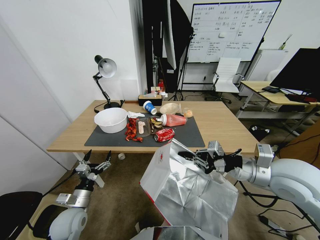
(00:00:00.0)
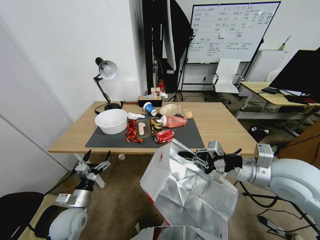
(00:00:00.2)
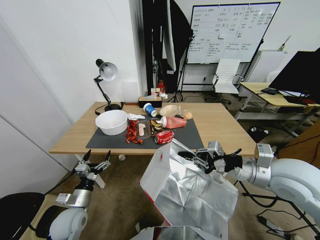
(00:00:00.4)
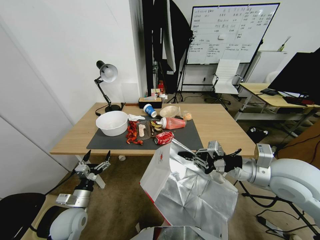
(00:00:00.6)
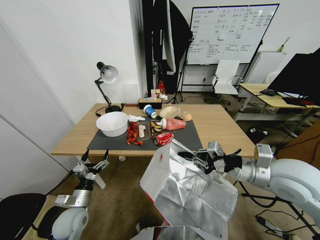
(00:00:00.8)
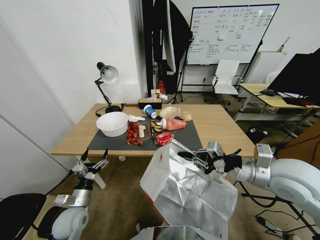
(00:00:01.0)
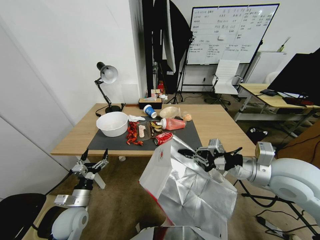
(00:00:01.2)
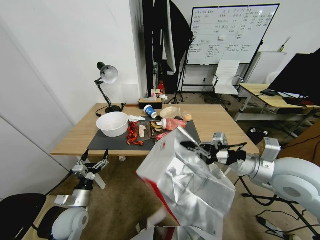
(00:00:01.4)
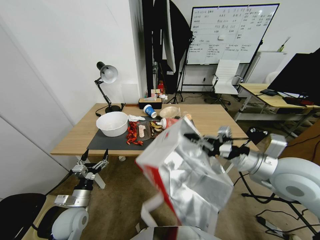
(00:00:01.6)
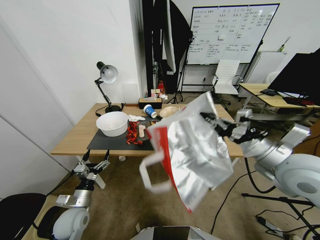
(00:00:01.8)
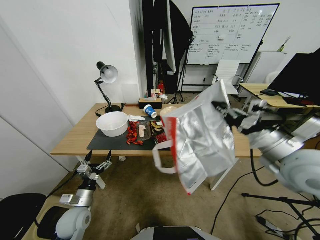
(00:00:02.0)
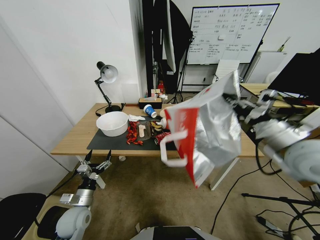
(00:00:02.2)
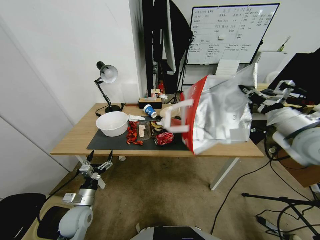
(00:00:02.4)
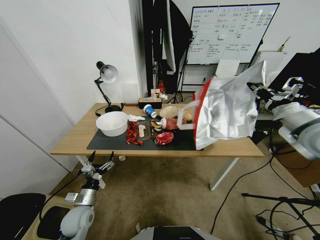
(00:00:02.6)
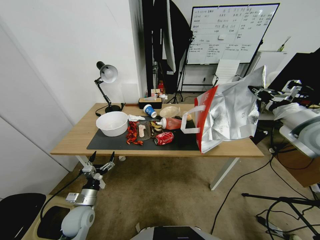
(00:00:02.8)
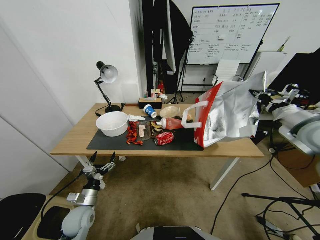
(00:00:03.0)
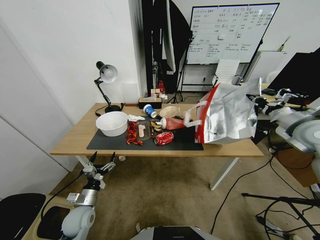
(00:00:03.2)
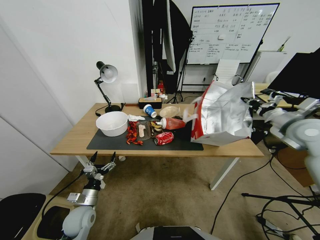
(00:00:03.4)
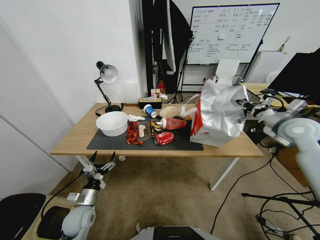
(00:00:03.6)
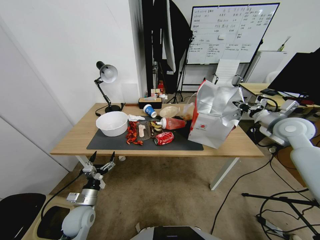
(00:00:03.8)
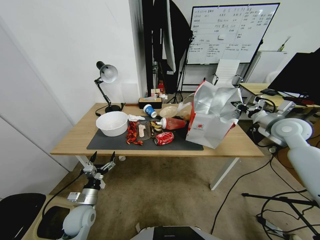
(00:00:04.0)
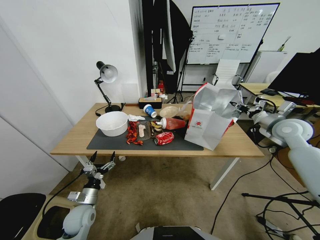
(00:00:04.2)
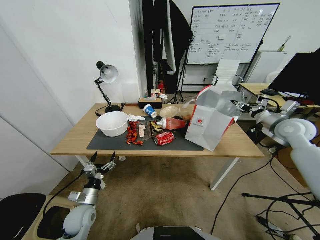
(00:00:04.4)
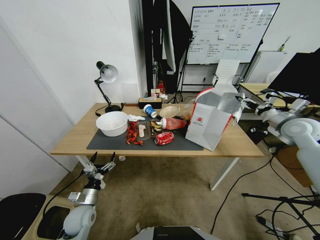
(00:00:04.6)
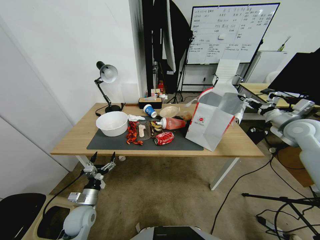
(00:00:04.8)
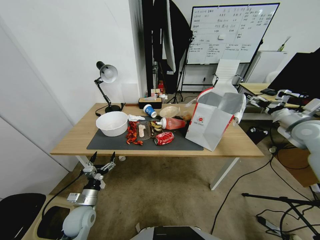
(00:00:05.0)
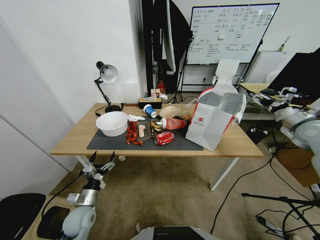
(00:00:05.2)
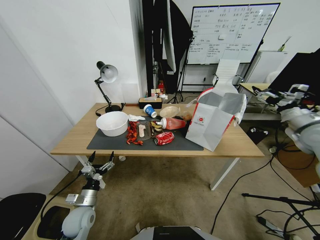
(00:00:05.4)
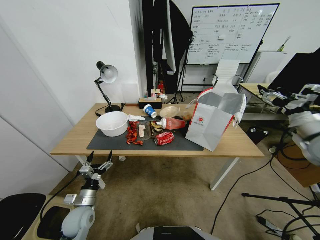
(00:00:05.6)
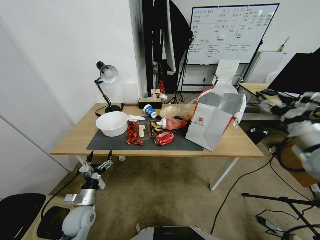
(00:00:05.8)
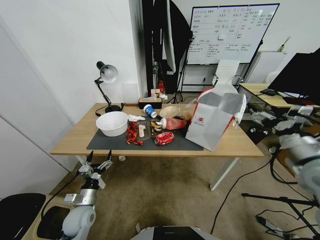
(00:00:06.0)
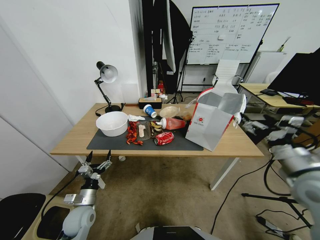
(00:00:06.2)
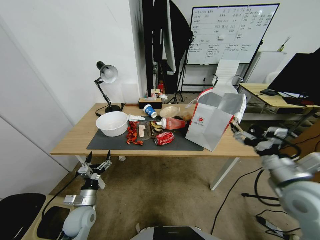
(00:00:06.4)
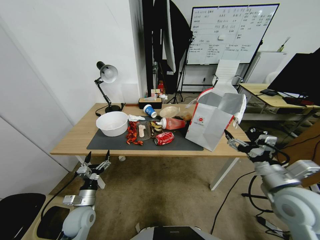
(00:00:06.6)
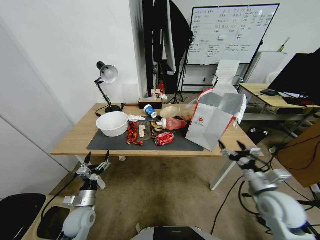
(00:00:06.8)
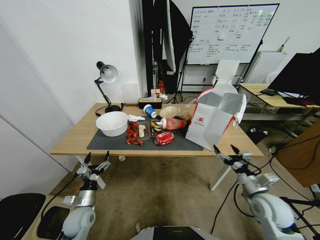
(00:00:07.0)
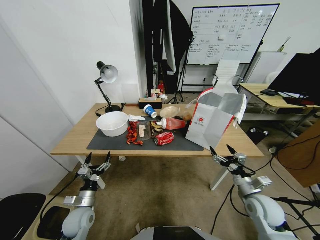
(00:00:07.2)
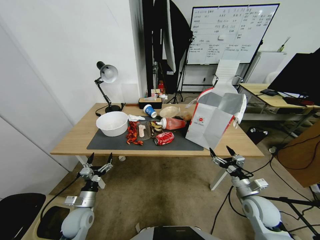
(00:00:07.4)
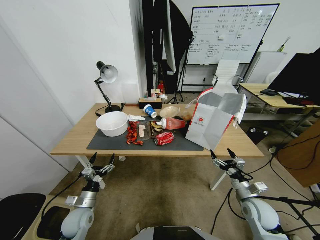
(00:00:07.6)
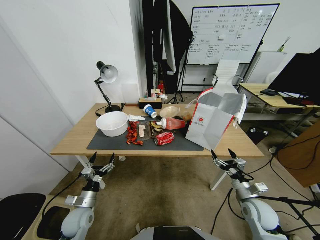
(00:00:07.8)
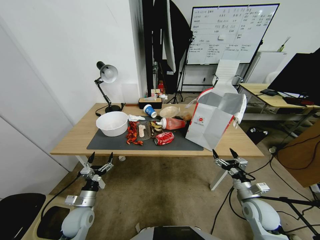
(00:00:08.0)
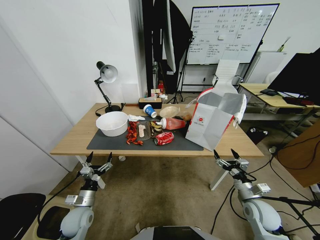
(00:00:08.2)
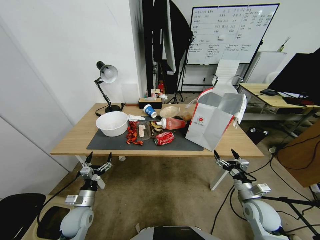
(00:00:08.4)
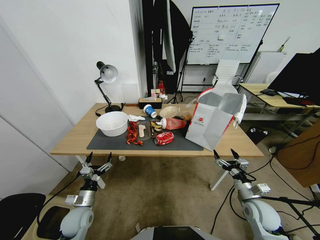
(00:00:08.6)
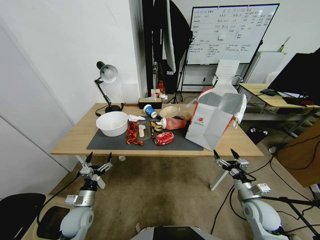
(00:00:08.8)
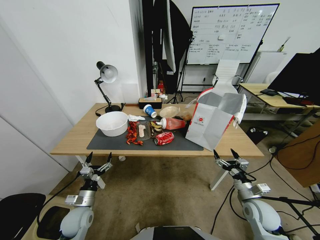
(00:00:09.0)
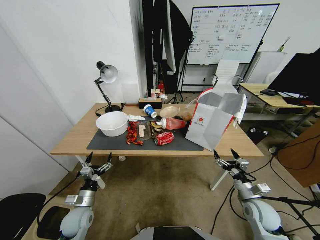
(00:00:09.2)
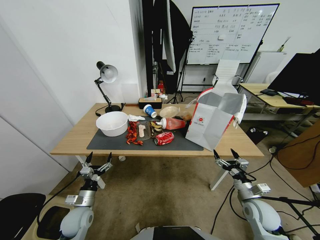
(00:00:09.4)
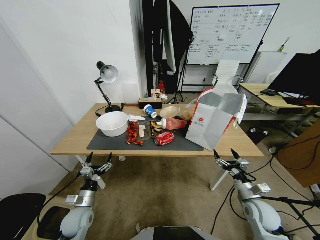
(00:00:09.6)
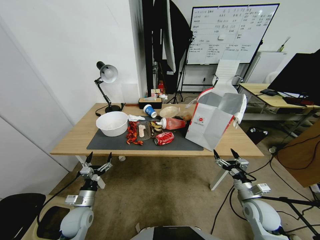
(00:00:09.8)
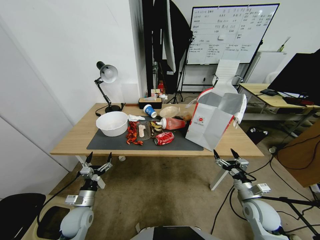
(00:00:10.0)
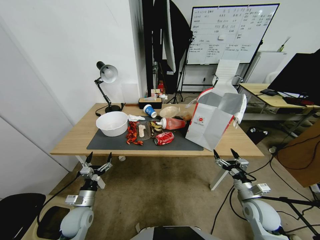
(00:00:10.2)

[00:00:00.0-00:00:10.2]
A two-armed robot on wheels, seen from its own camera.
Task of the whole recording: Pick up the food delivery bag from the floor and place it on the table.
00:00:01.4 to 00:00:03.0: The right gripper goes some 20 cm to the right and forward.
00:00:03.0 to 00:00:04.4: The right gripper travels forward by approximately 5 cm, and opens up.
00:00:04.4 to 00:00:05.8: The right gripper travels backward and to the left by about 20 cm.
00:00:05.8 to 00:00:07.2: The right gripper goes some 25 cm downward.
00:00:07.2 to 00:00:08.8: The grippers move only a little.
00:00:08.8 to 00:00:10.2: Both grippers stay about where they are.

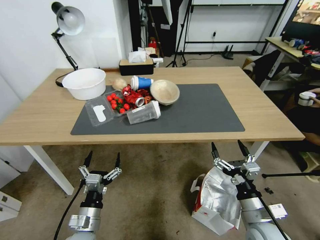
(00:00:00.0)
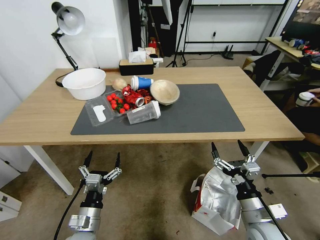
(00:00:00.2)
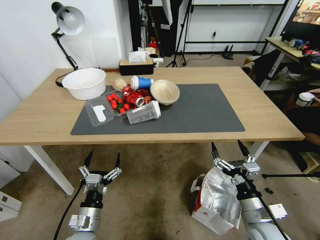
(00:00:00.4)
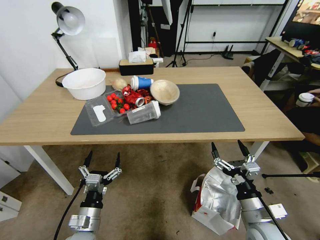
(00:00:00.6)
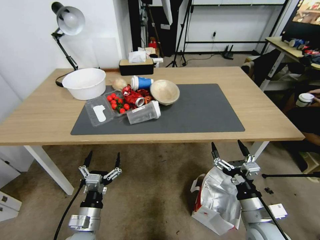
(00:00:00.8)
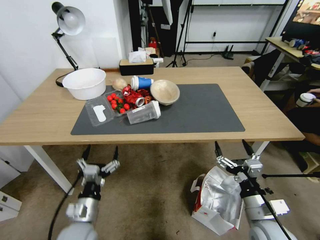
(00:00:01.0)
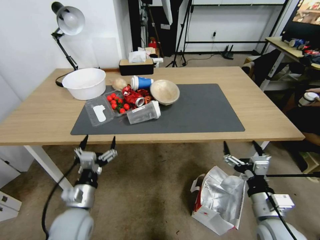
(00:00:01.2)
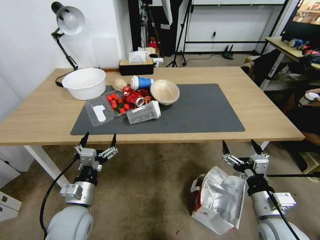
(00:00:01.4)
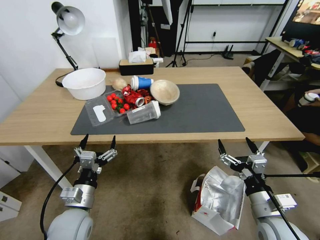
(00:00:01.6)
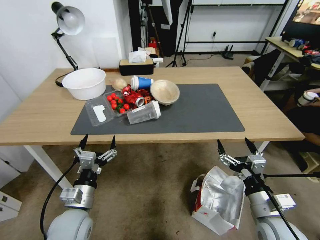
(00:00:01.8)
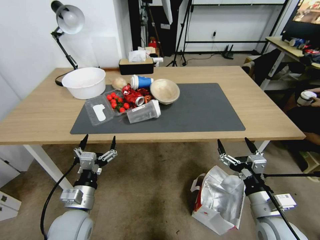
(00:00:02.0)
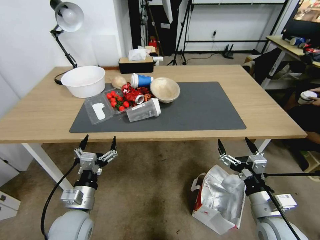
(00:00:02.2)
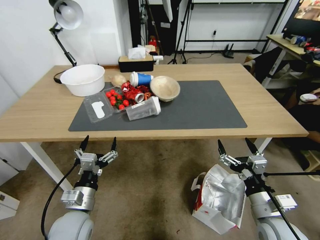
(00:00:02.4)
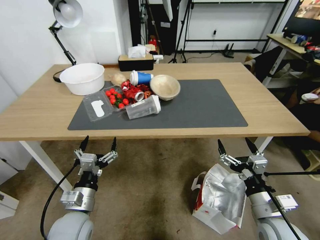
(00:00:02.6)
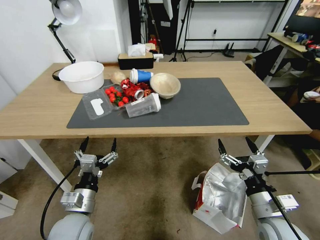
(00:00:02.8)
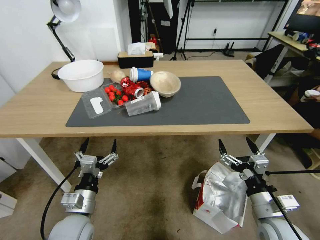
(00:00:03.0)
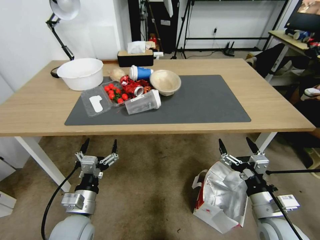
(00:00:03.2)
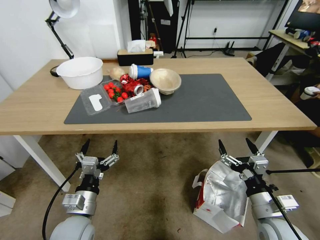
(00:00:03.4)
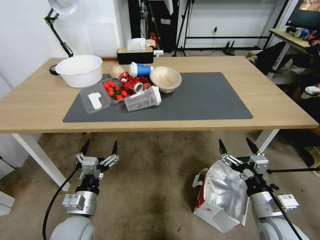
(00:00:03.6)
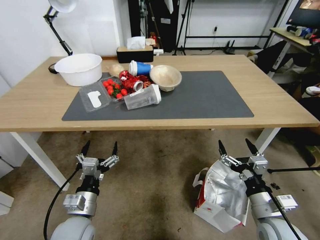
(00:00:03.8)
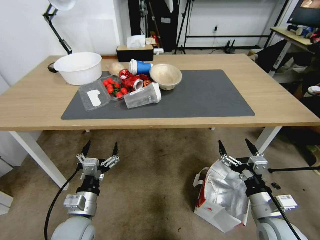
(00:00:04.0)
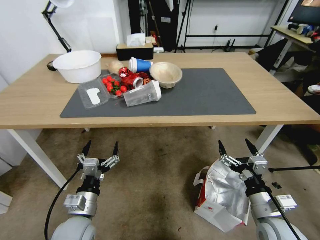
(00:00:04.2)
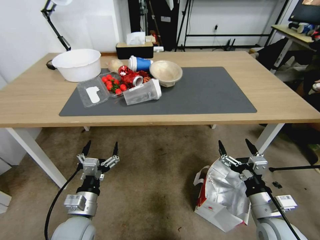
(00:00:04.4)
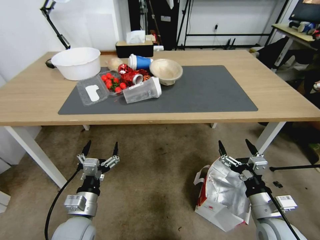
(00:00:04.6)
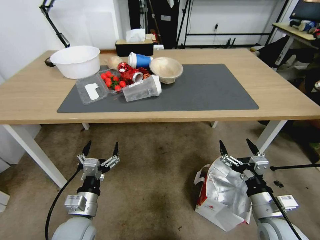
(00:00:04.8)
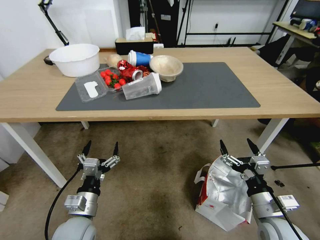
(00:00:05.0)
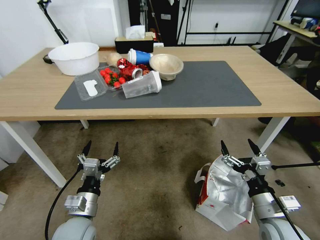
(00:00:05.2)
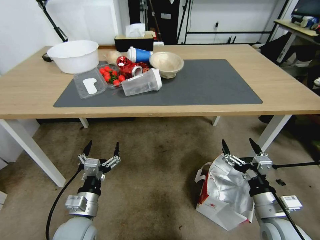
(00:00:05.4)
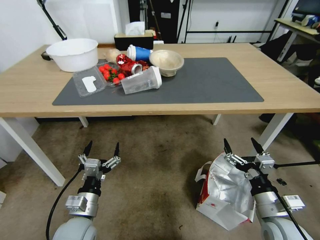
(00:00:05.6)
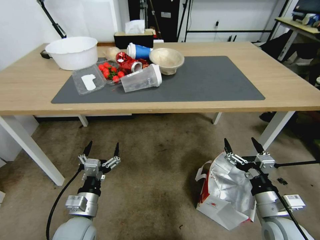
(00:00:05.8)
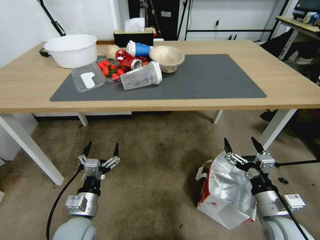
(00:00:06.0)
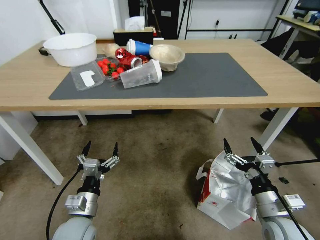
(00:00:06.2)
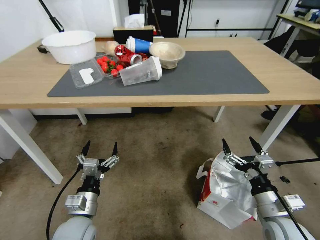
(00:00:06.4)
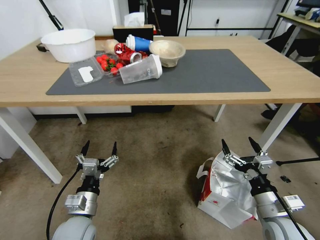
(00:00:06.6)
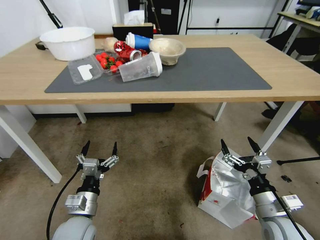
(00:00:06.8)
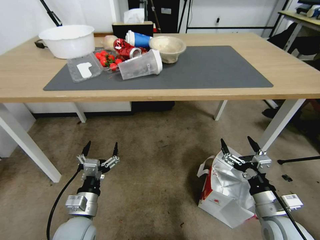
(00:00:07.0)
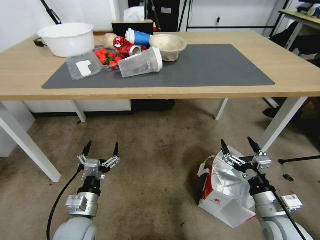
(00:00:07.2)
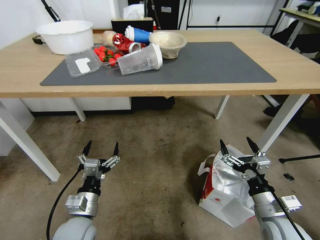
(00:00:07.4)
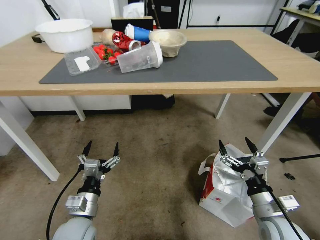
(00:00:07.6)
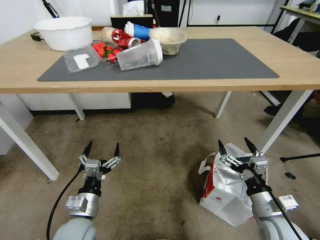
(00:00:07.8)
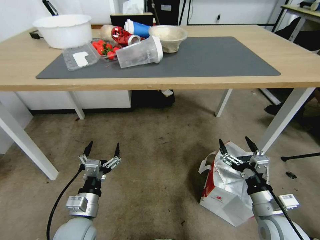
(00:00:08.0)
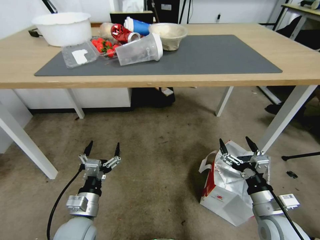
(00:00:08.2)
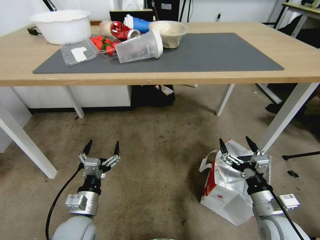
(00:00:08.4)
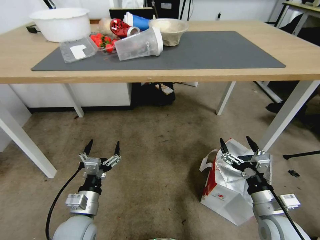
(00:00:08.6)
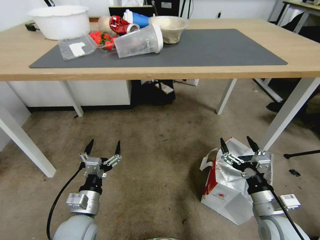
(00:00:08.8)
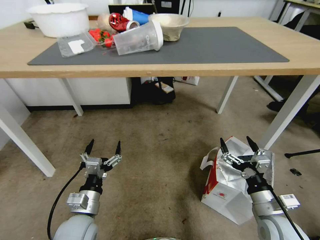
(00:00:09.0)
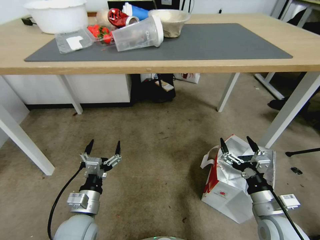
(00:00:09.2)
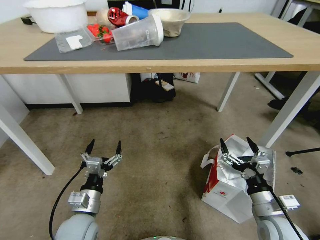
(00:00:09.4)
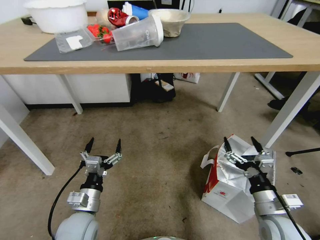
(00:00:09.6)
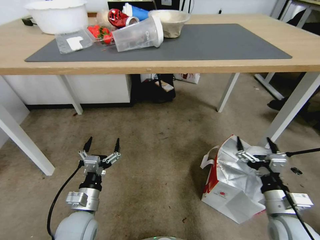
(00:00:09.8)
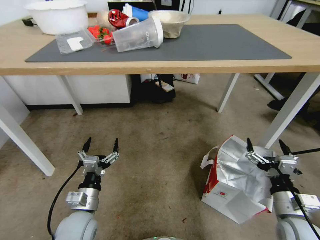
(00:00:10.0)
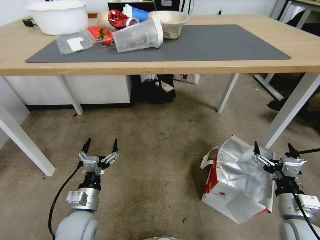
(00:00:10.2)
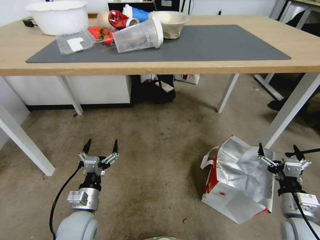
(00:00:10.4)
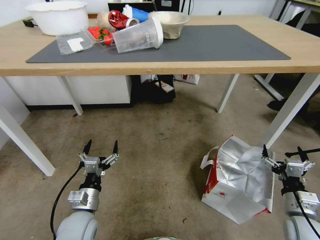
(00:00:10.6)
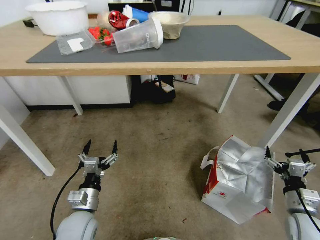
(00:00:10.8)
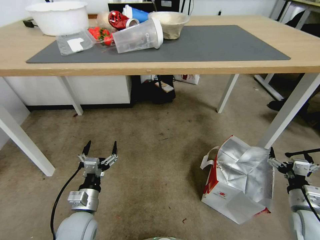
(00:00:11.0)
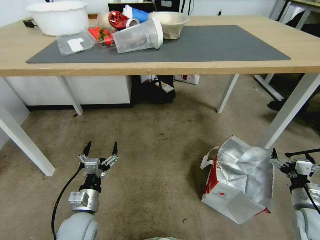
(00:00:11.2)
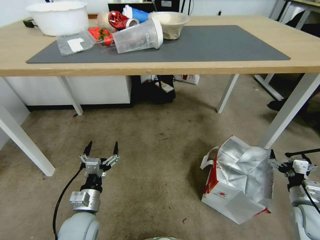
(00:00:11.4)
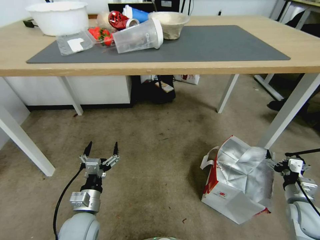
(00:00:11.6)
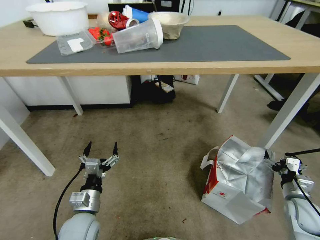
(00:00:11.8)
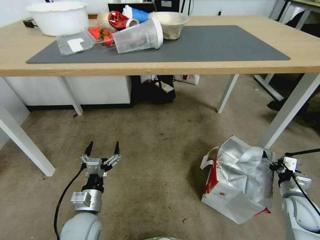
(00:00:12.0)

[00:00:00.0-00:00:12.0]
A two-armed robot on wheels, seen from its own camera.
Task of the whole recording: Pick up the food delivery bag from the floor and place it on the table.
00:00:09.0 to 00:00:10.4: The right gripper heads to the right, covering approximately 5 cm.
00:00:10.4 to 00:00:12.0: The right gripper is displaced to the right, forward and downward by some 15 cm.
